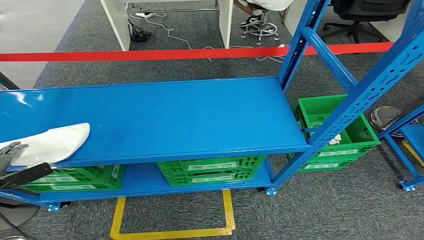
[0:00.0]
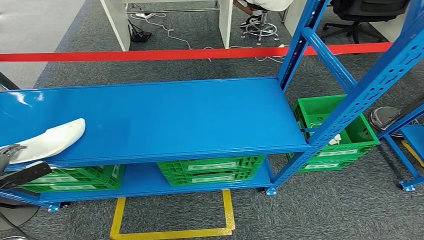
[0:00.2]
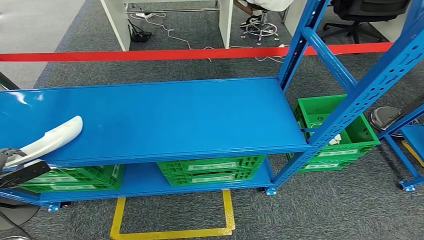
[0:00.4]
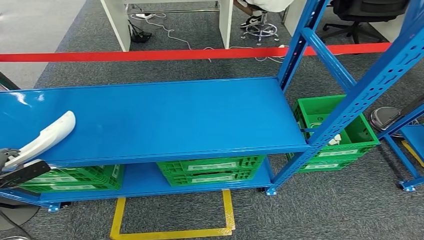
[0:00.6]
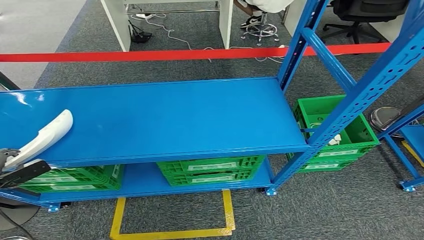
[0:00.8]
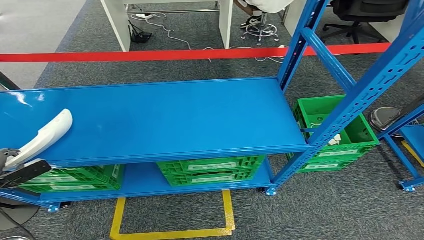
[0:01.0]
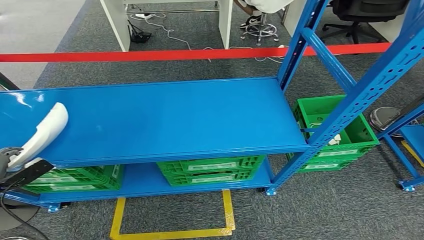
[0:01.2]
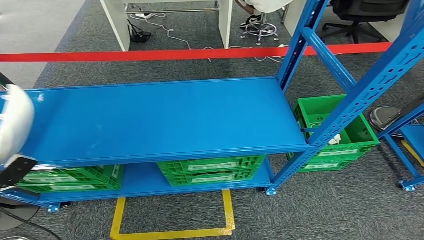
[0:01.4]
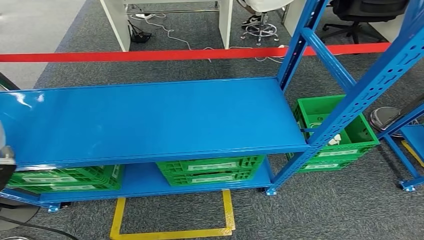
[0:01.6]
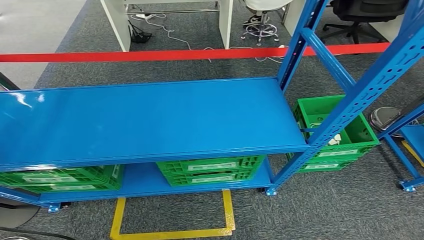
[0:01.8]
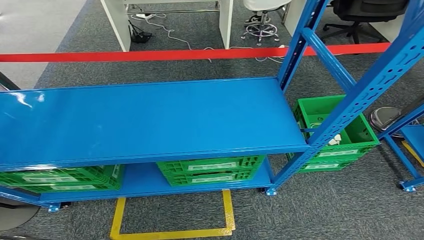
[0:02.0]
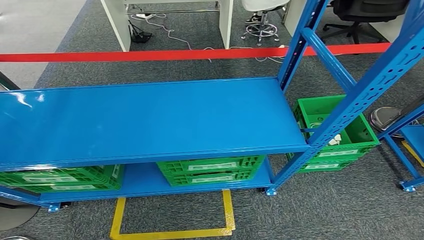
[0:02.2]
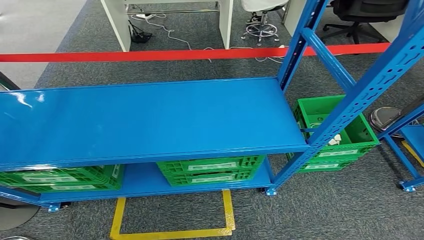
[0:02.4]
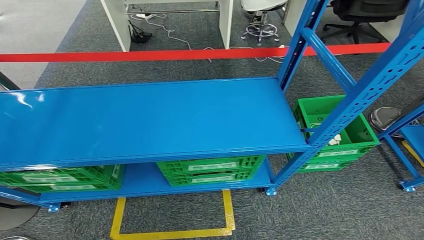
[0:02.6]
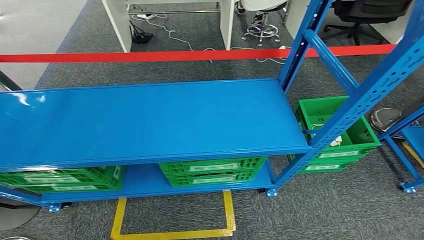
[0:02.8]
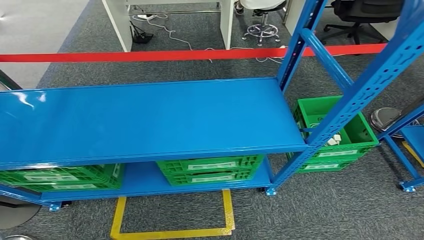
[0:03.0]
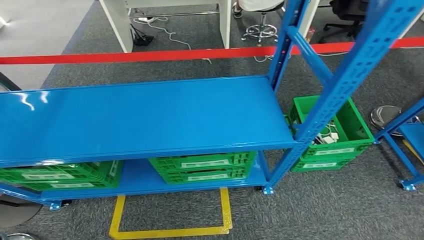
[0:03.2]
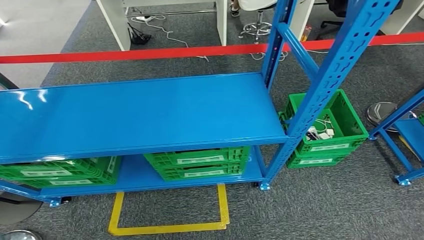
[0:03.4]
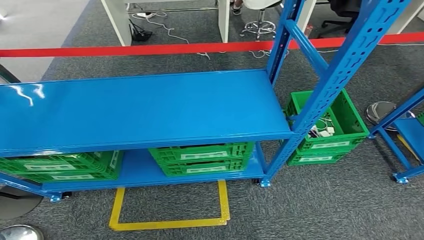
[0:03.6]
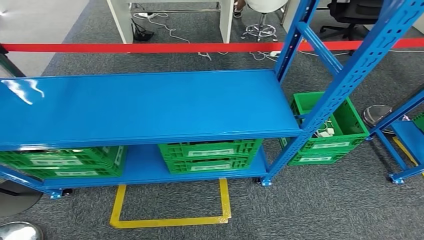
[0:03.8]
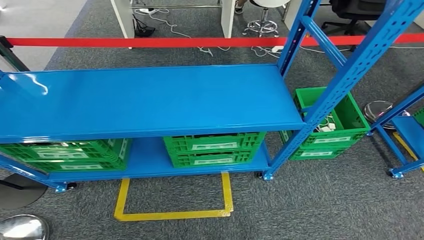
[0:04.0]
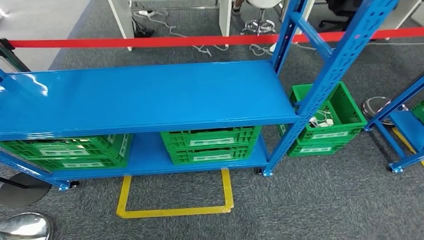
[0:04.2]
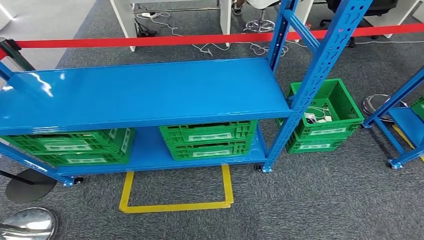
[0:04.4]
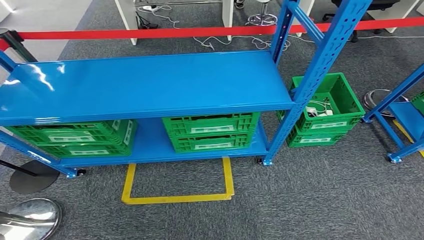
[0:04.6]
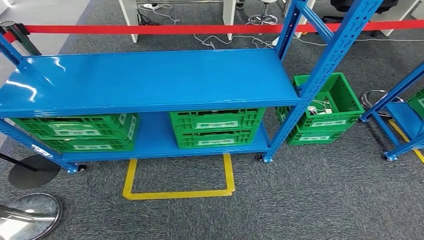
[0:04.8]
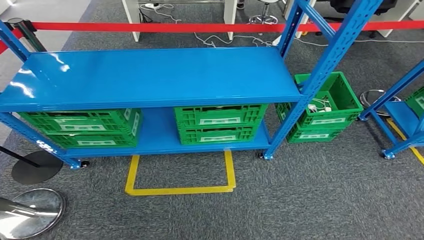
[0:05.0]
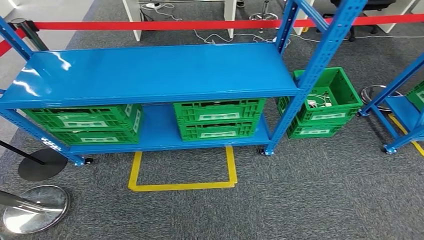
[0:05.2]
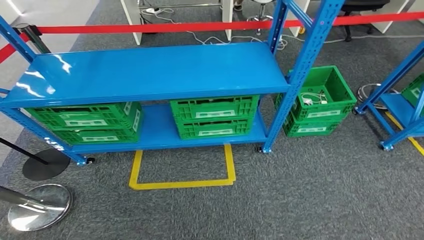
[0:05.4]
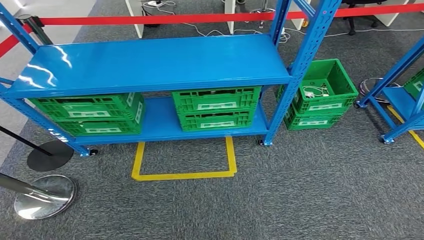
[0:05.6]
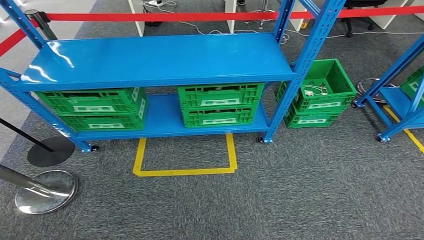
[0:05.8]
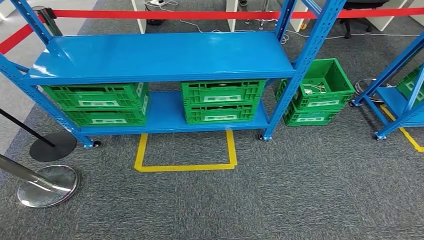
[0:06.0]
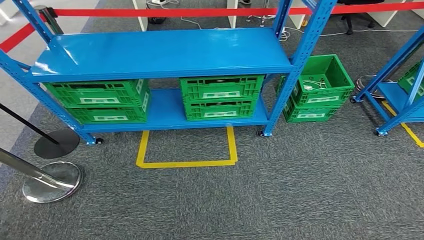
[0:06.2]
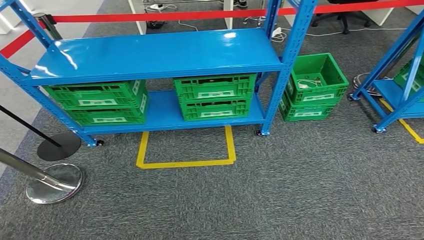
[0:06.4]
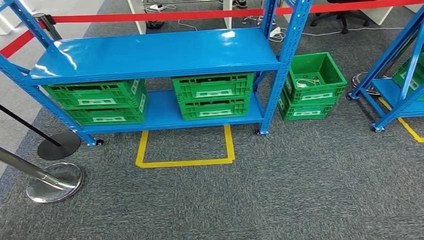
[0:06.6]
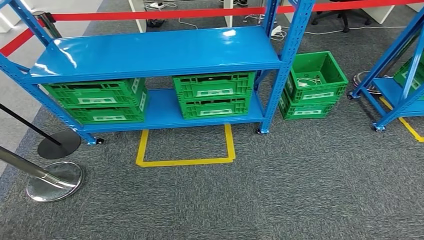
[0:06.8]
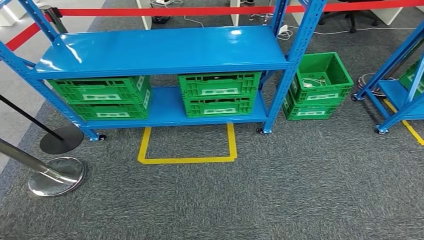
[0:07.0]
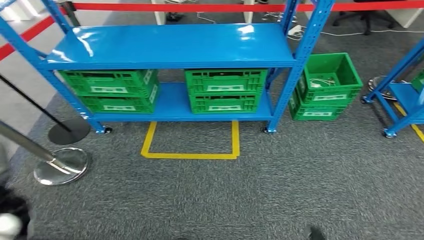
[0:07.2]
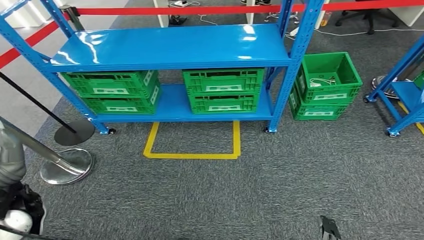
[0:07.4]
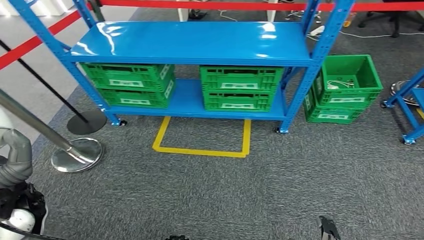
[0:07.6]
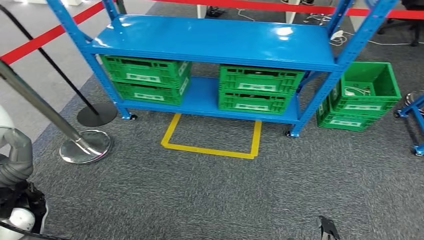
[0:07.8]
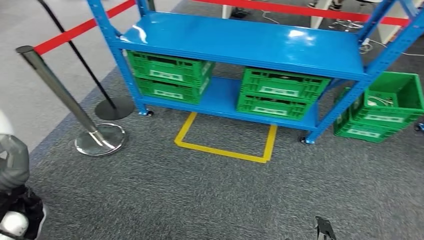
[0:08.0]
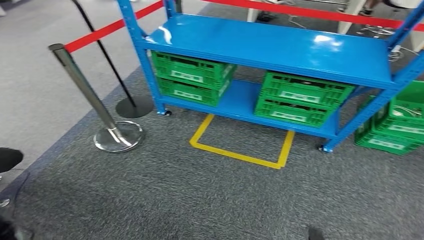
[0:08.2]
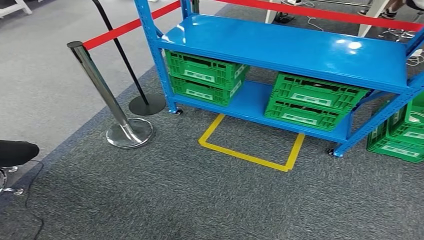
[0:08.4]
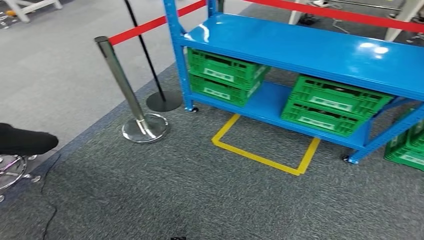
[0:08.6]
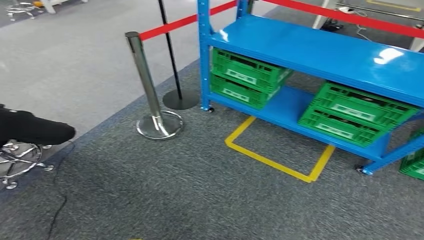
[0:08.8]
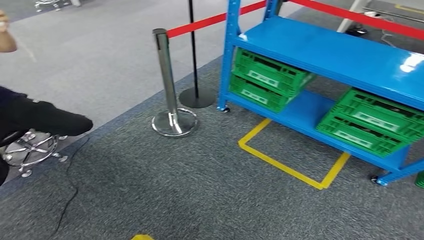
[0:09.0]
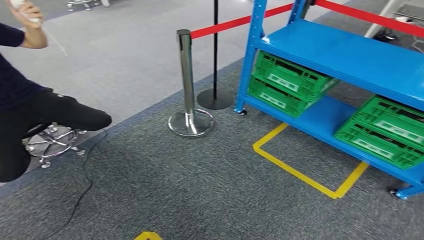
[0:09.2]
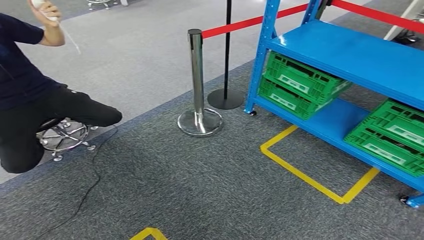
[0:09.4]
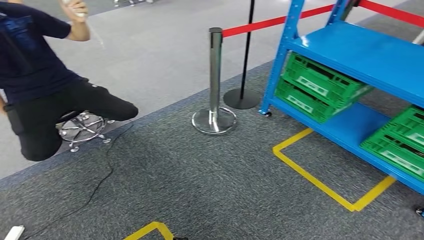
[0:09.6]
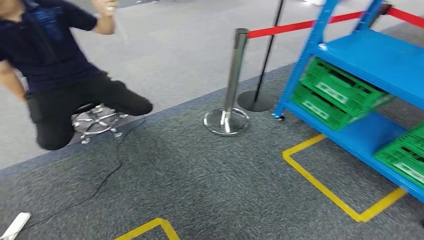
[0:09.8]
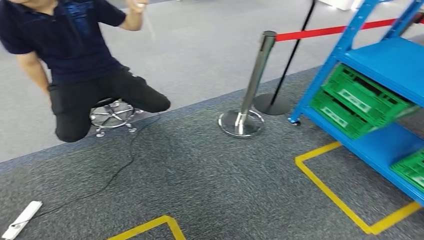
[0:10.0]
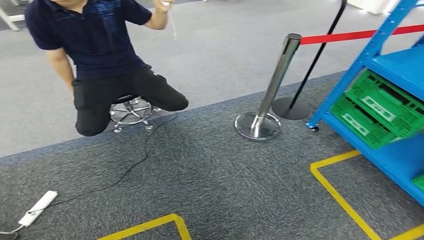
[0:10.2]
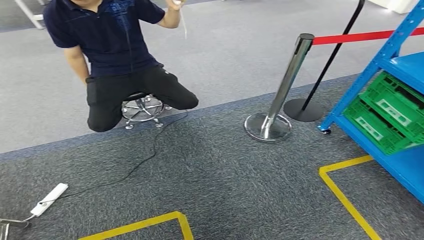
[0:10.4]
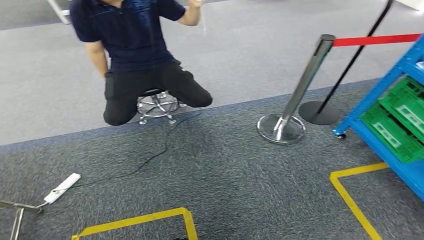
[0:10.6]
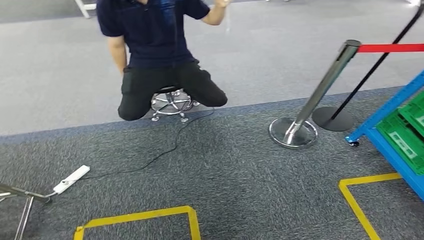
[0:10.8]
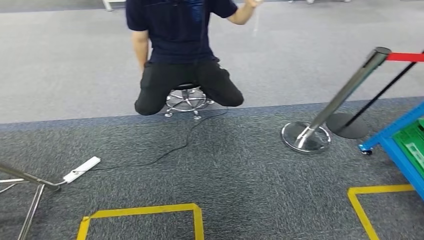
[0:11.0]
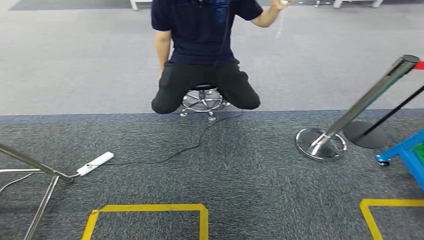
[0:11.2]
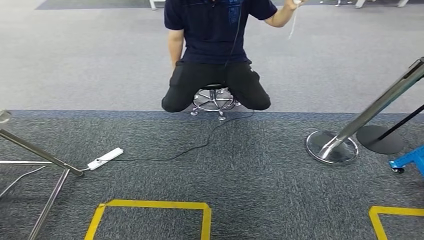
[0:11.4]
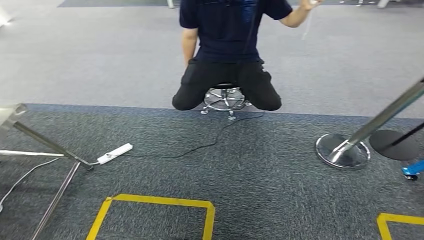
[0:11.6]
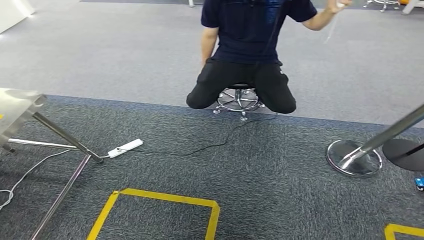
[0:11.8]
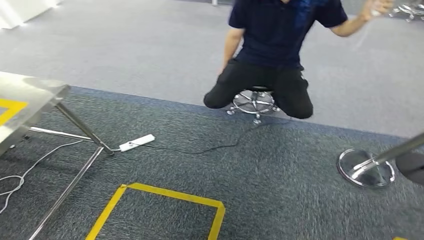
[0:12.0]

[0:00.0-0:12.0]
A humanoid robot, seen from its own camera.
Step, 0:00.0 to 0:05.2: Pick up the small parts from the shelf.
0:01.6 to 0:03.0: The left hand heads to the right and upward, covering approximately 10 cm.

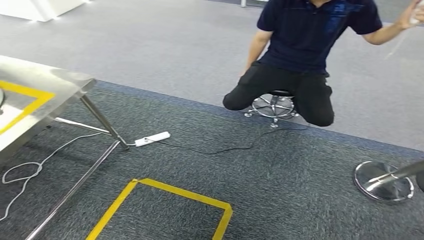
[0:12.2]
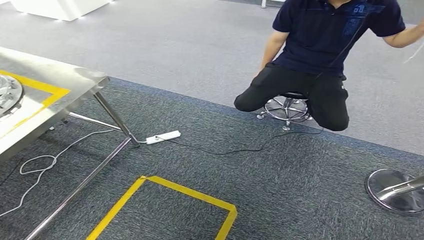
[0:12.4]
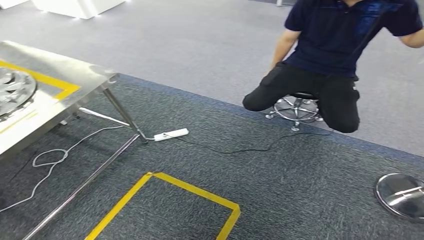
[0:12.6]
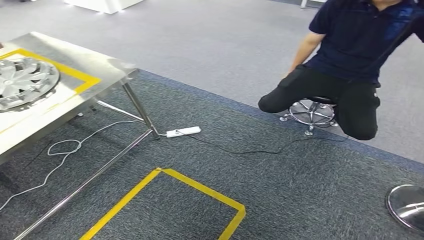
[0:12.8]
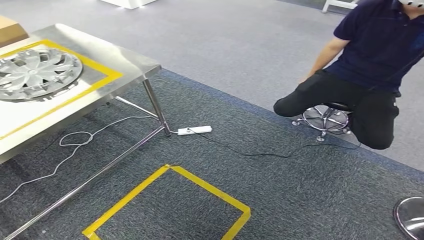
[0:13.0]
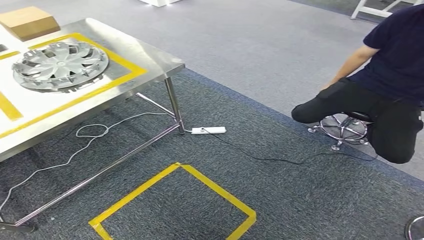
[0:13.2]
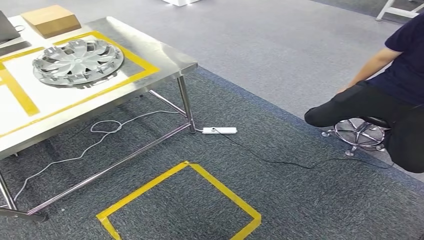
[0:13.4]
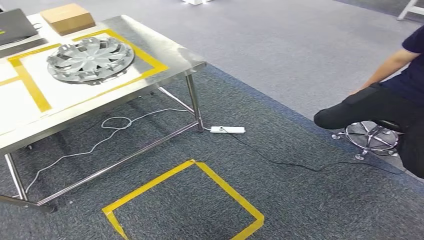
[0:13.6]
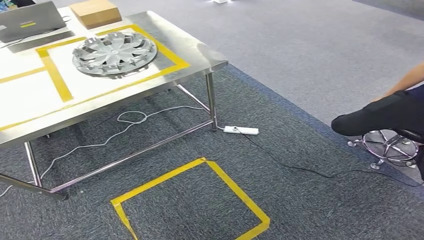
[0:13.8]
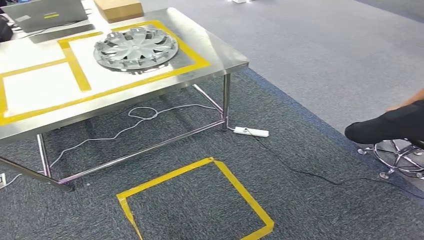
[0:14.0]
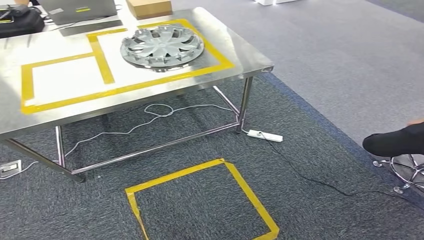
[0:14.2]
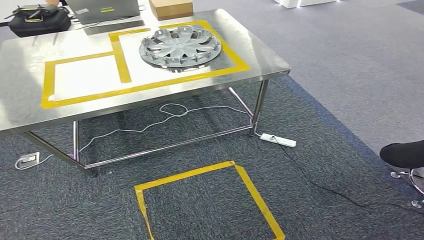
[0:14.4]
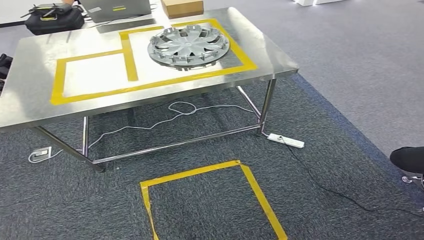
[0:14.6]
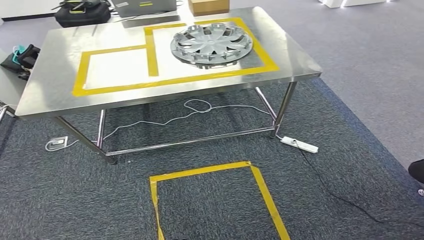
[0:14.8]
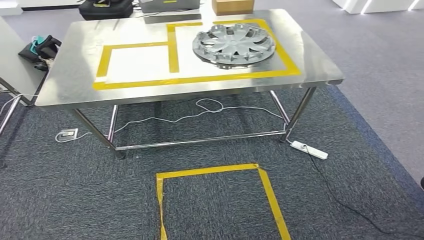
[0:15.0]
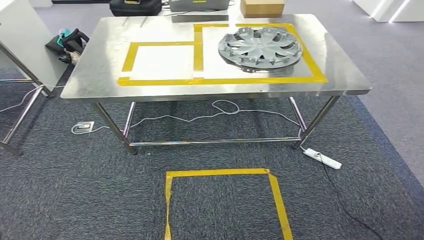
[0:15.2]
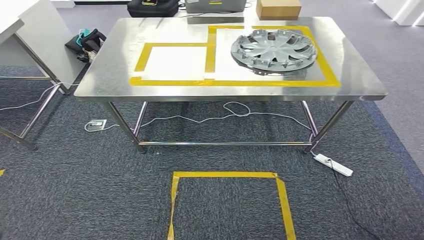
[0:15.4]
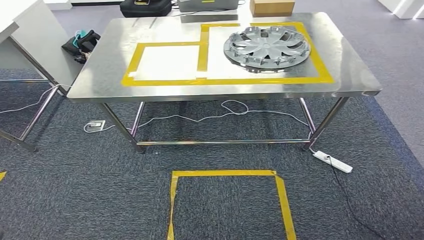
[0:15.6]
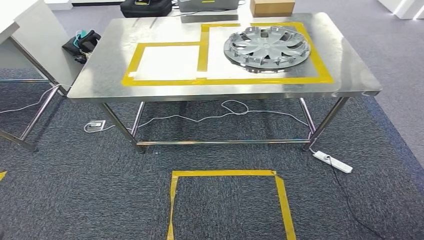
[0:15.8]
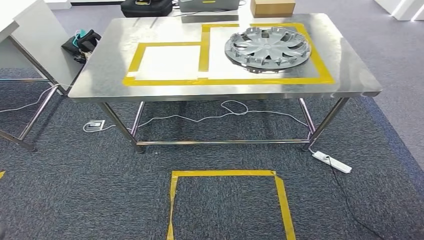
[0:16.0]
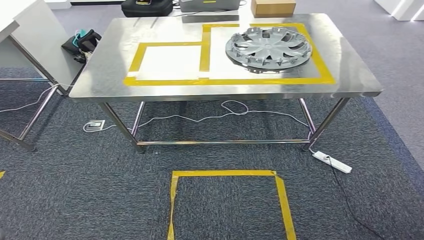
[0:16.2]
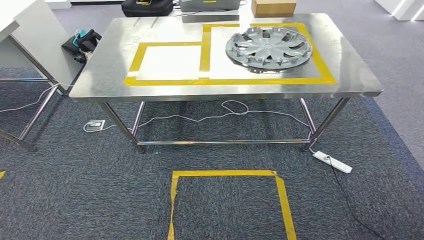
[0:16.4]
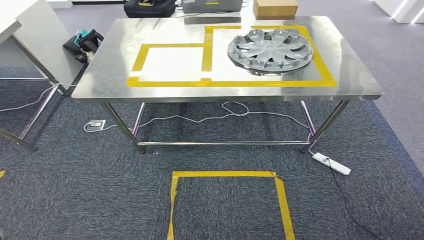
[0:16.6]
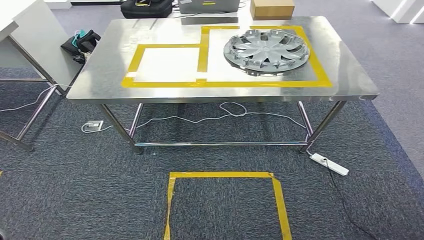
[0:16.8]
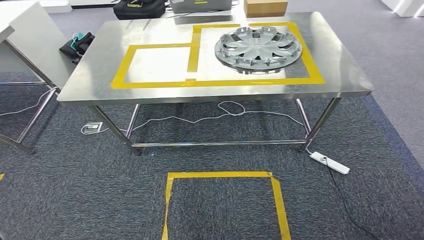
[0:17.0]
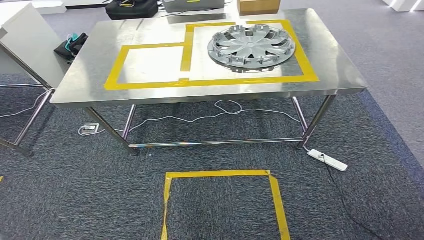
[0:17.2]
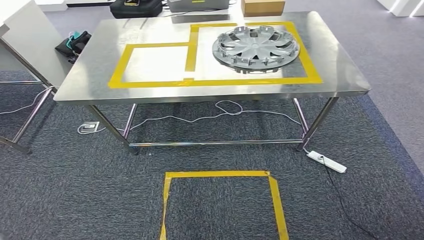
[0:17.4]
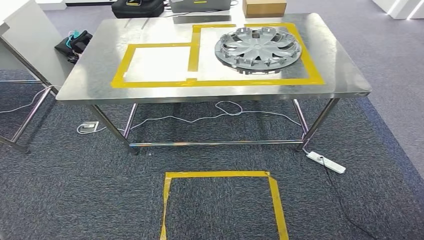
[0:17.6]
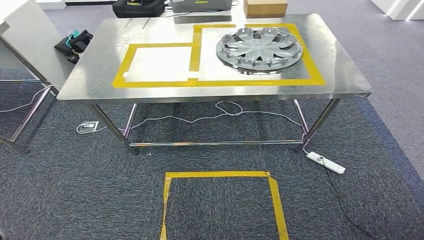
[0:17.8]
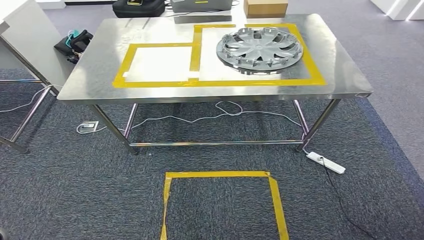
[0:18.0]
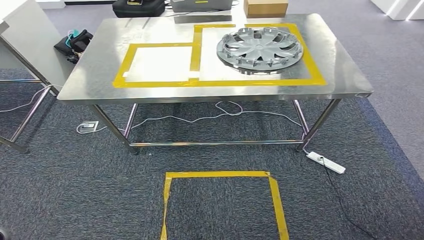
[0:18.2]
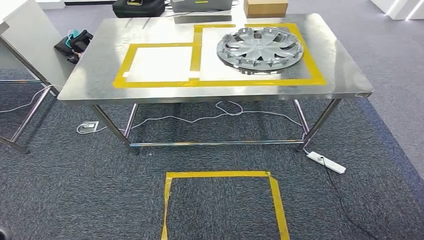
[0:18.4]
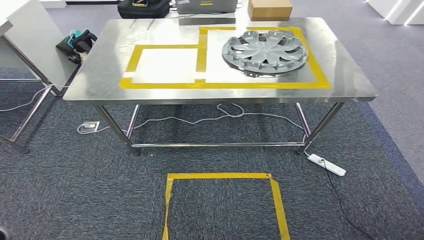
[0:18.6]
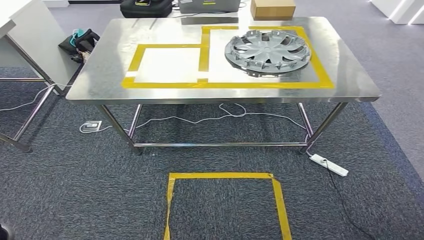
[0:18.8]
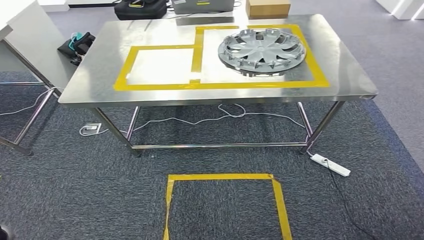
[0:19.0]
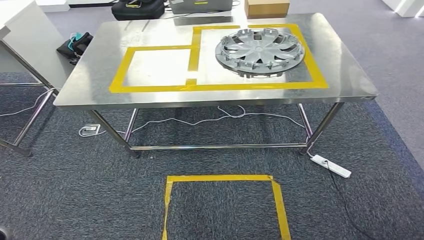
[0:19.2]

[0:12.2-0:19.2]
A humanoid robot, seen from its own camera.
Step, 0:12.2 to 0:17.2: Move the small parts to the workbench.
0:16.4 to 0:17.8: The two hands keep their place.
0:17.8 to 0:19.2: Neither hand changes place.
